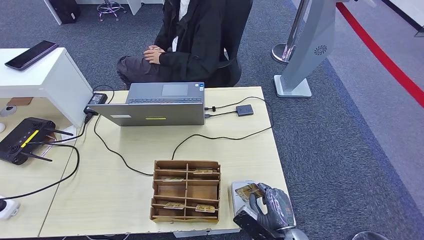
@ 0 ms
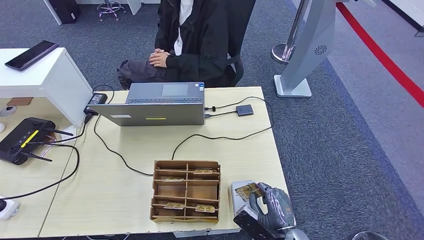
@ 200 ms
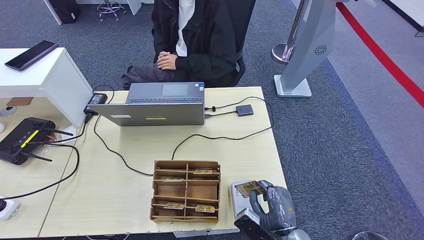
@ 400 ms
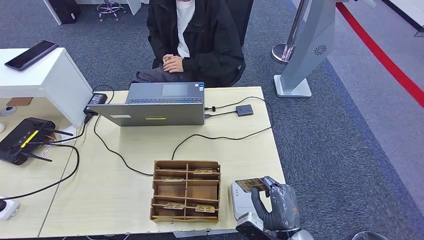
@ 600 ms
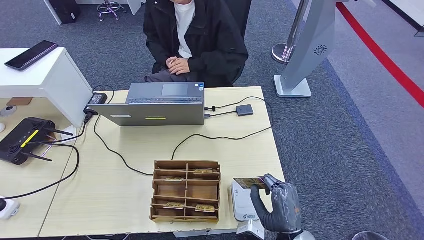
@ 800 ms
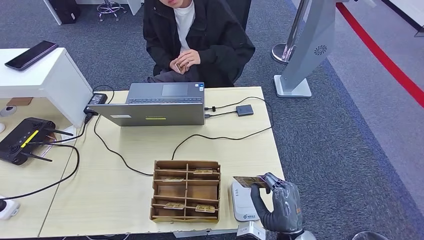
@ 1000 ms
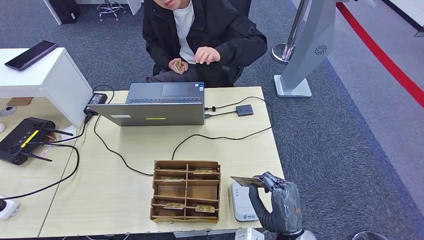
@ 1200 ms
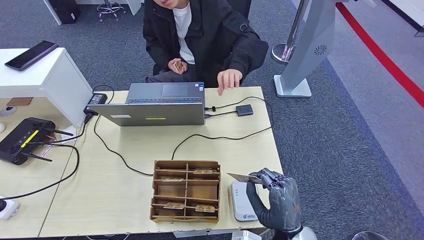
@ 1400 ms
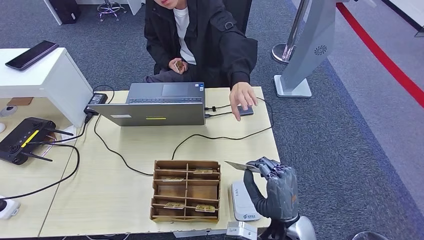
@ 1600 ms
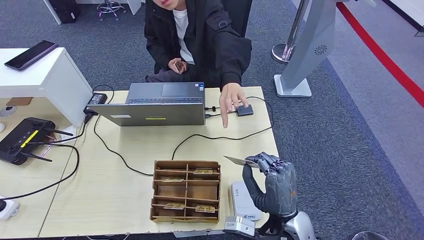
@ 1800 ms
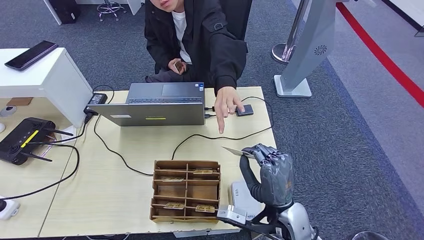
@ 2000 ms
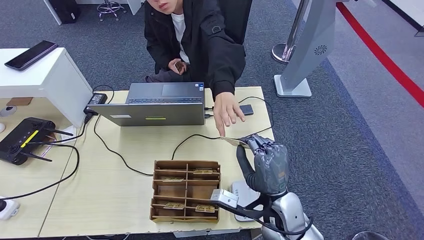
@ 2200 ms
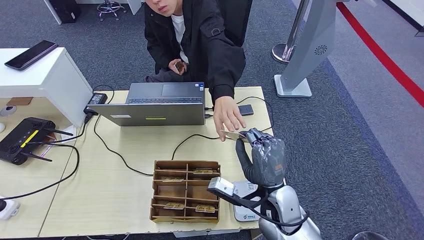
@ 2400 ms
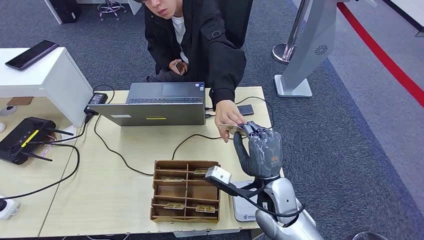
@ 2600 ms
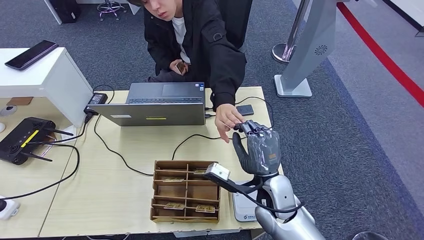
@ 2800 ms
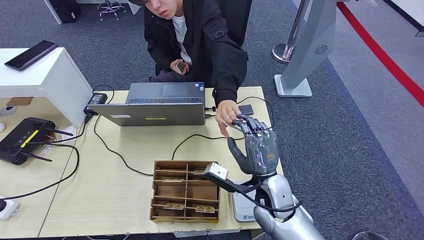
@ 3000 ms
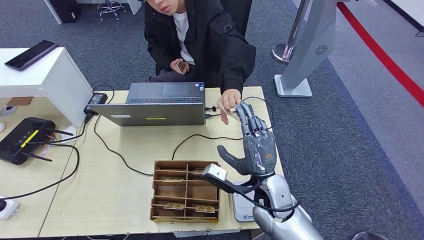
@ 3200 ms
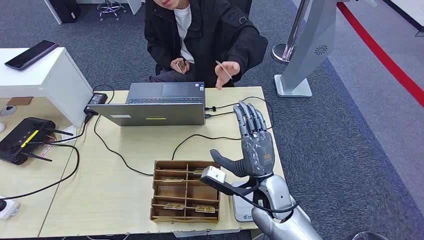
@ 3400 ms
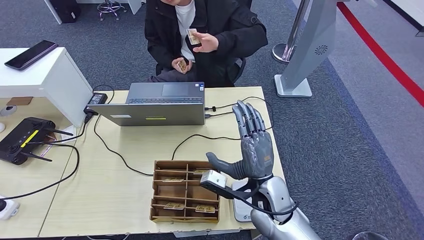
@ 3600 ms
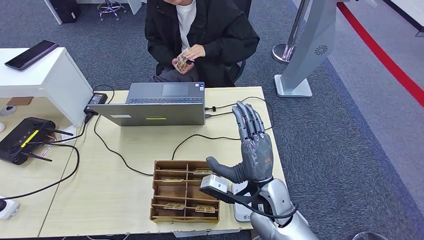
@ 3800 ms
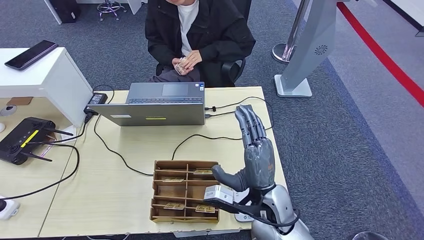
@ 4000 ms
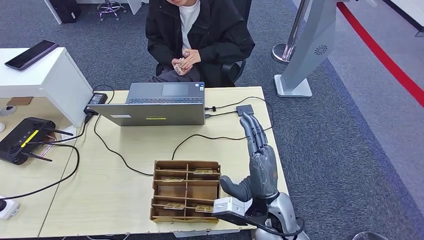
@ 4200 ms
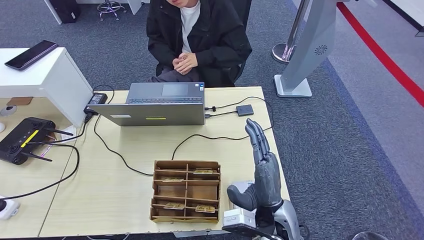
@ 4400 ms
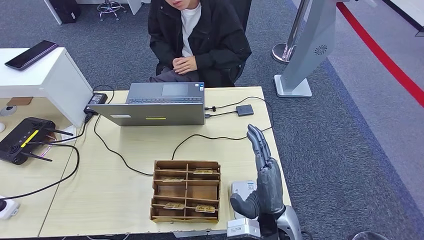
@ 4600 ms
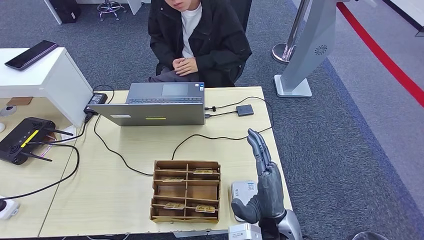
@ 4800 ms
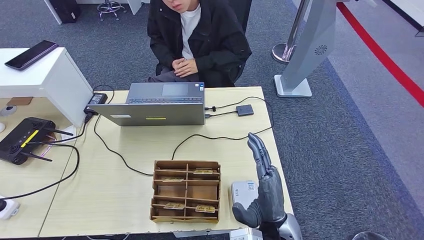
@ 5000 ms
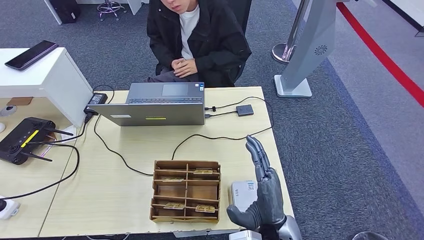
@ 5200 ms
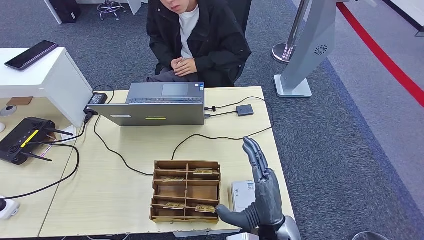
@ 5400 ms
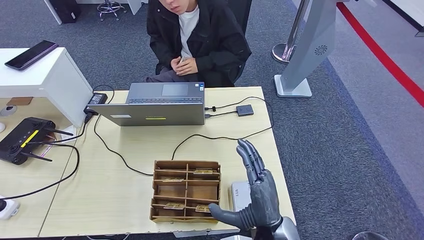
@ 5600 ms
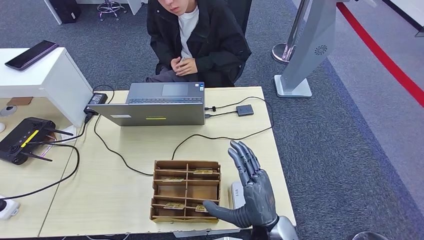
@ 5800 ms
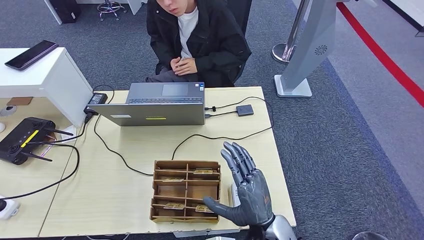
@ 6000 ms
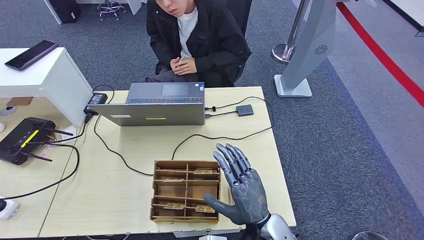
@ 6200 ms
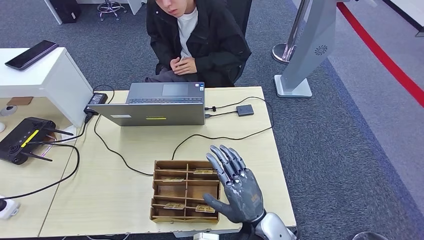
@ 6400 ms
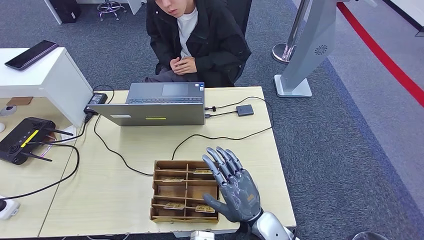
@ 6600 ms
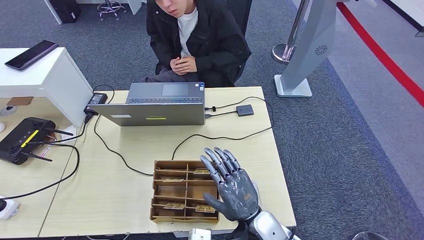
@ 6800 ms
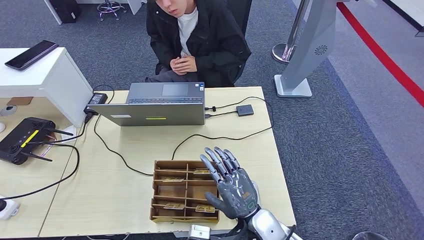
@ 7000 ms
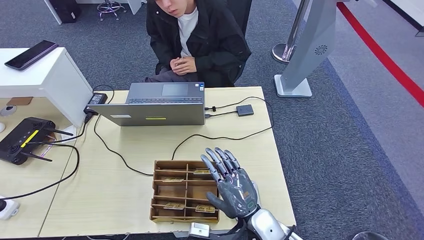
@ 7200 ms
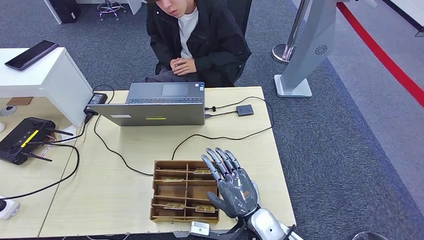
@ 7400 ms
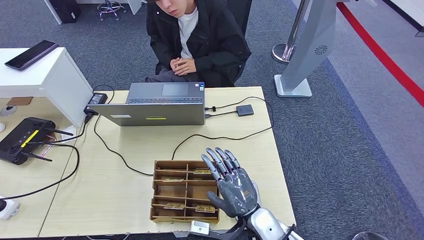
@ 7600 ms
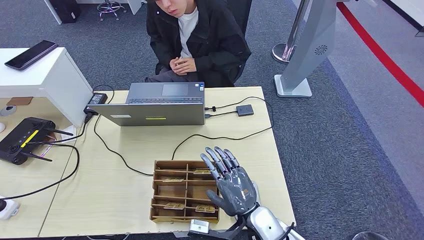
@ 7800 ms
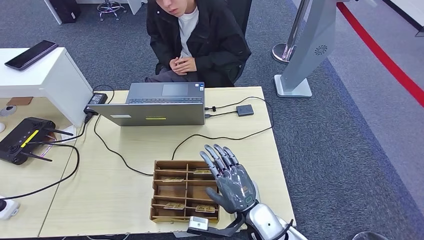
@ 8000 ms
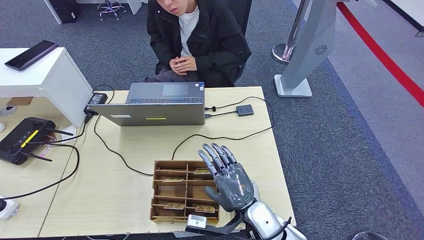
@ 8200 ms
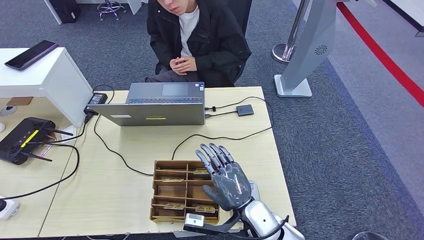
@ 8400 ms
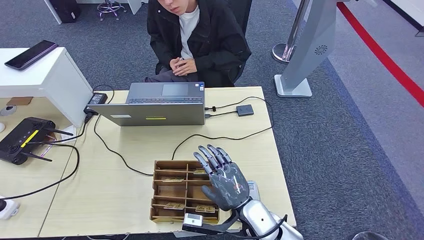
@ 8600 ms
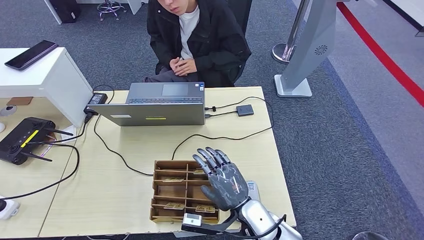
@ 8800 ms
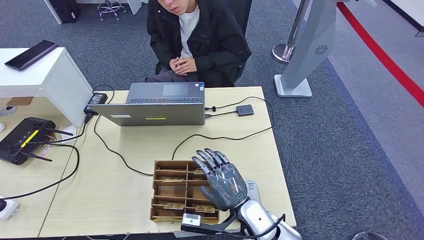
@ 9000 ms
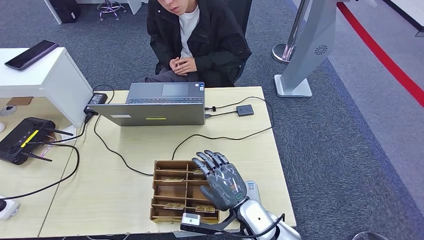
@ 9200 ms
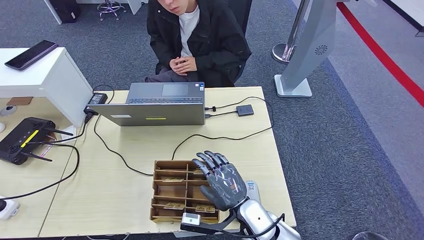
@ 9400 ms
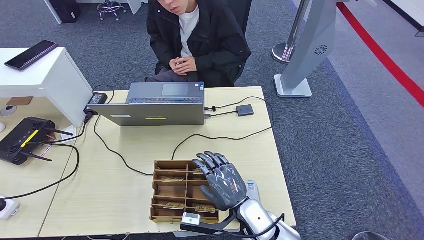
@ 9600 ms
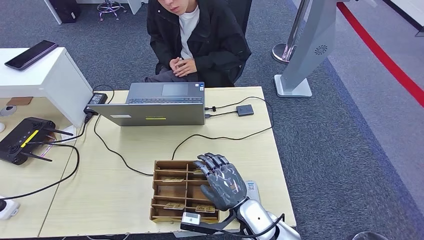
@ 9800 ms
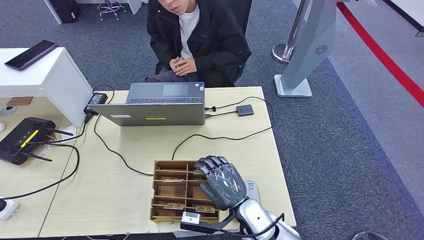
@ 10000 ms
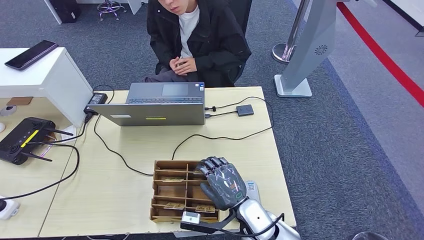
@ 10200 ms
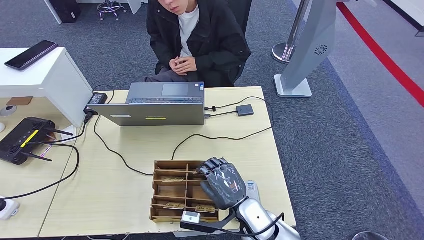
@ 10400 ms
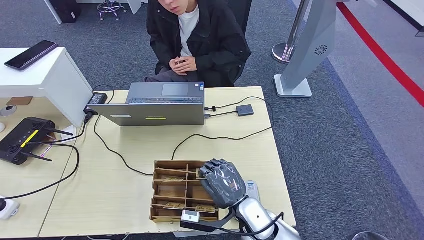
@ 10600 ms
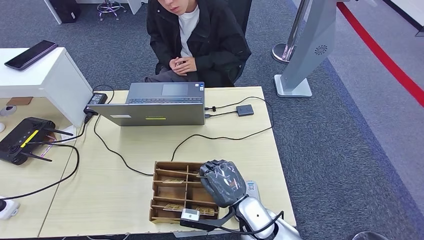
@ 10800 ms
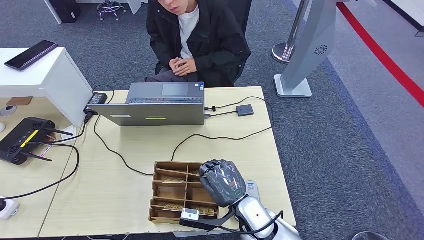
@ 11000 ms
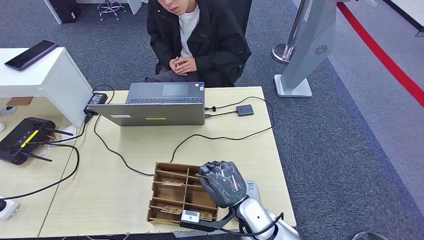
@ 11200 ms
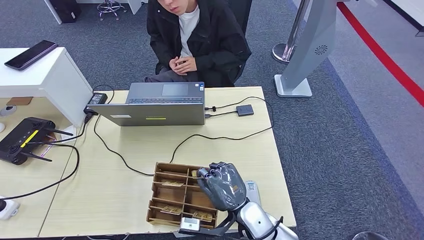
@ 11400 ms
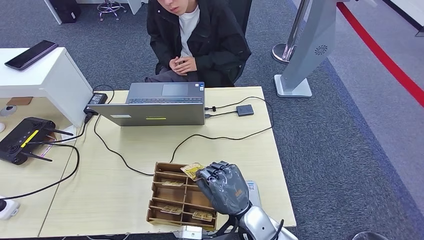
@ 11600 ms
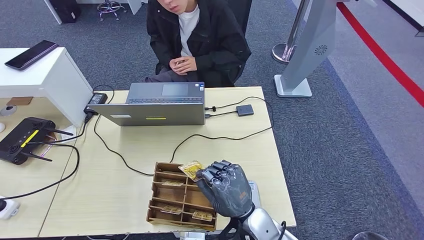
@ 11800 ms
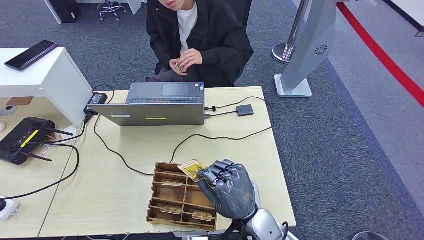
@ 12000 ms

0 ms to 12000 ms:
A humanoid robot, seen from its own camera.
Step, 1600 ms to 3400 ms: Hand the ID card to the person.
0 ms to 1600 ms: The right hand travels upward by approximately 10 cm.
1600 ms to 3000 ms: The right hand moves forward, roughly 10 cm.
3000 ms to 4400 ms: The right hand goes about 5 cm backward.
4400 ms to 6000 ms: The hands make only small movements.
7600 ms to 9000 ms: There are only small adjustments of the hands.
9000 ms to 10400 ms: The two hands keep their place.

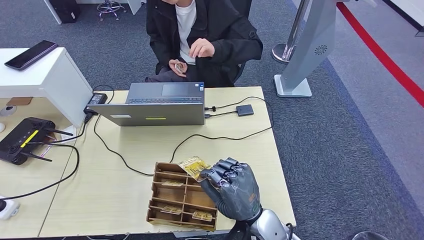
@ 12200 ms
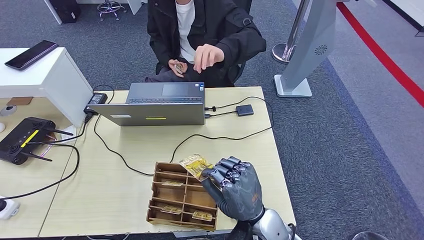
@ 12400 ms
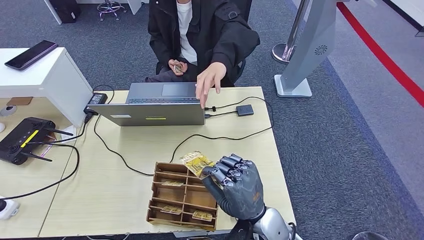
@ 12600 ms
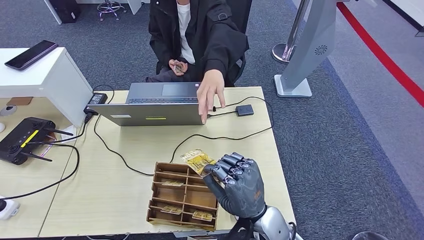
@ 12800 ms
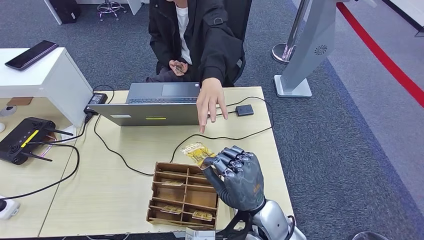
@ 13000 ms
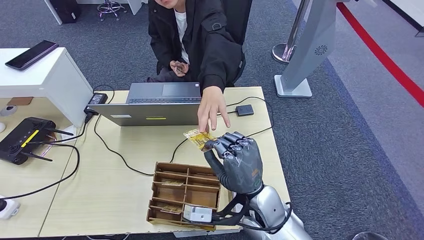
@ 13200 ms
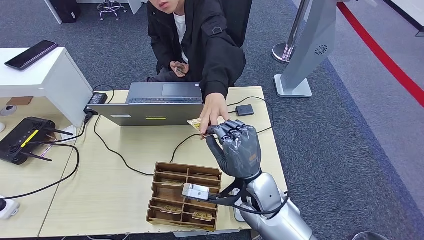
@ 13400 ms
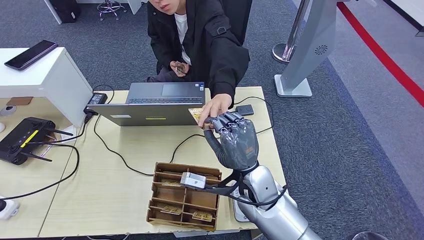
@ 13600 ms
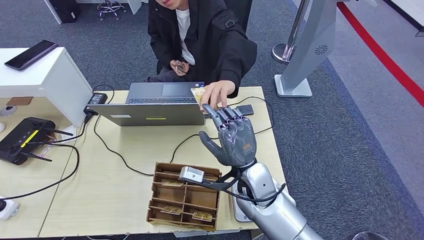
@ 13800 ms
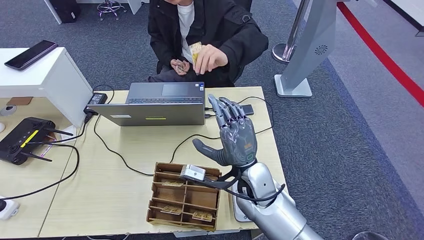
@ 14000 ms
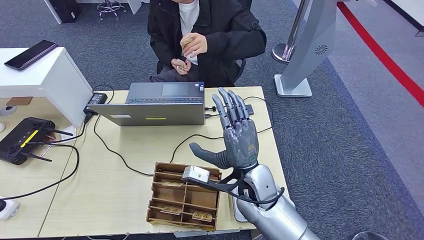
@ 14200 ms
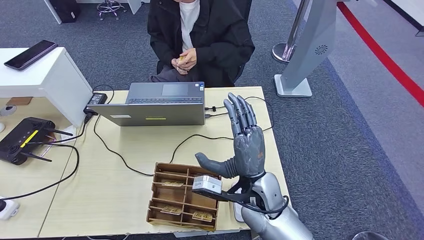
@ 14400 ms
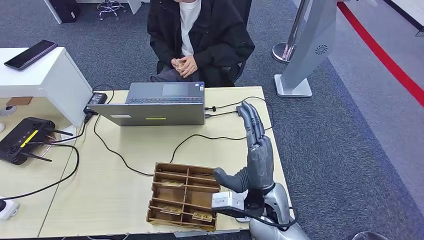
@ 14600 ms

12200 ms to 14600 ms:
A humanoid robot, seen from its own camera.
Step, 13000 ms to 14400 ms: Hand the room key to the person.
12200 ms to 13400 ms: The right hand shifts approximately 5 cm forward.
